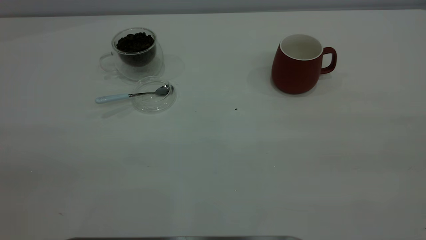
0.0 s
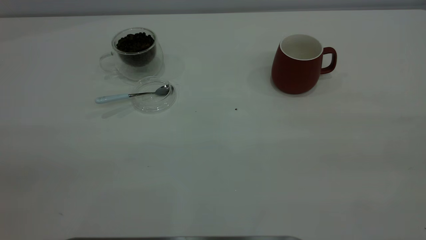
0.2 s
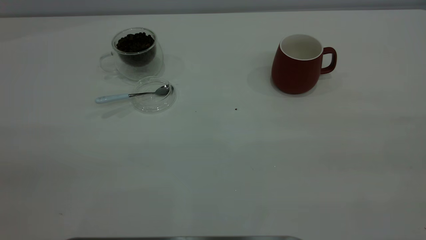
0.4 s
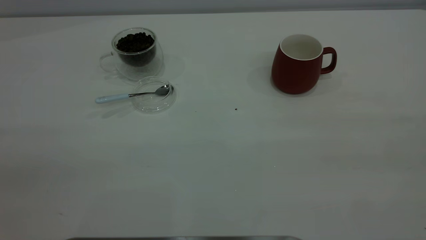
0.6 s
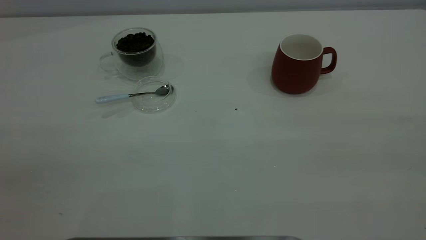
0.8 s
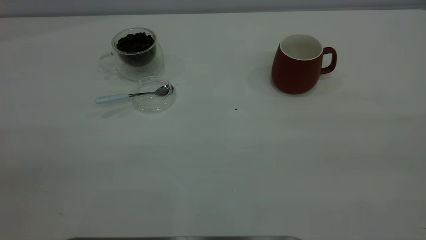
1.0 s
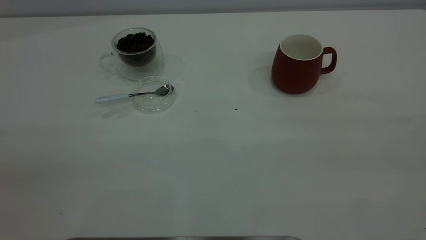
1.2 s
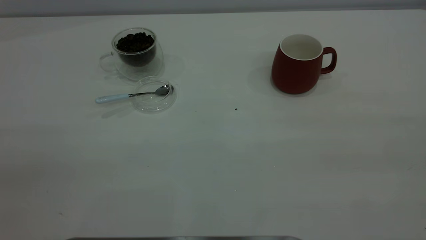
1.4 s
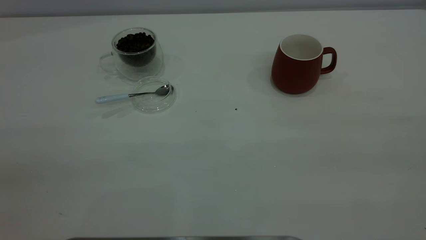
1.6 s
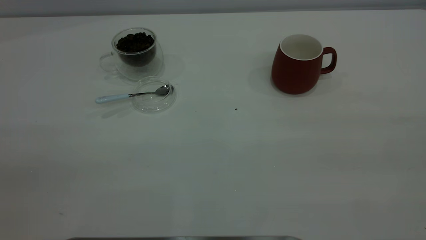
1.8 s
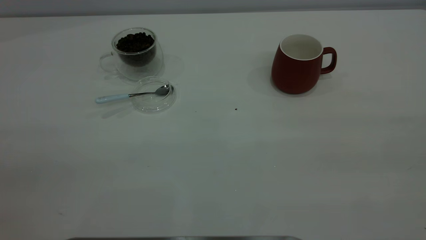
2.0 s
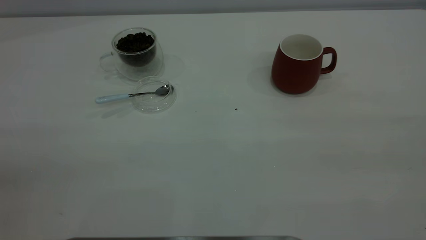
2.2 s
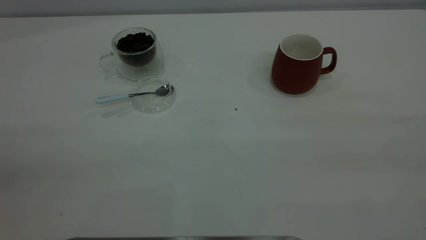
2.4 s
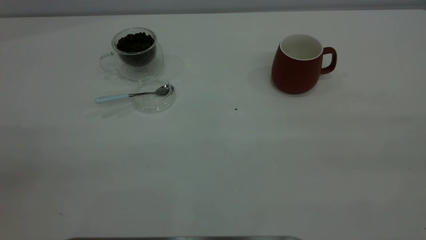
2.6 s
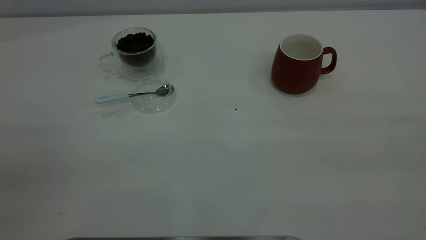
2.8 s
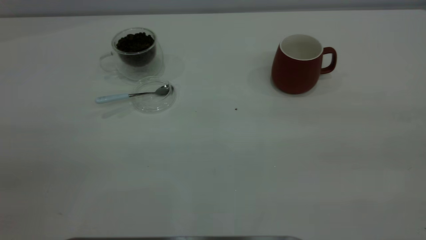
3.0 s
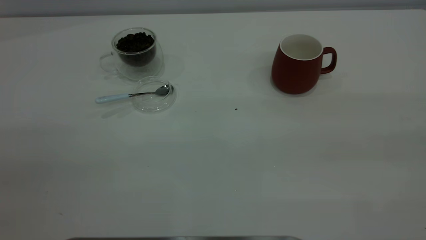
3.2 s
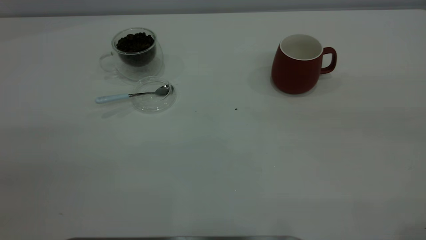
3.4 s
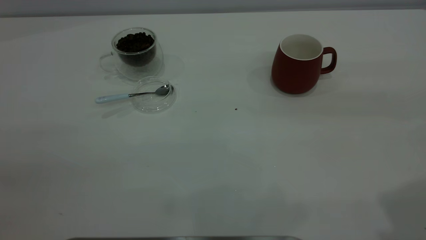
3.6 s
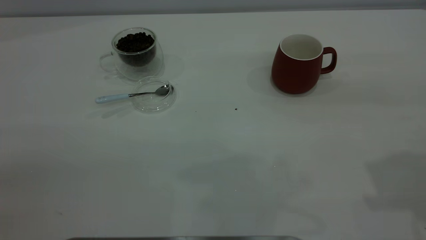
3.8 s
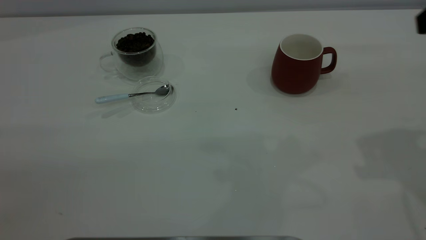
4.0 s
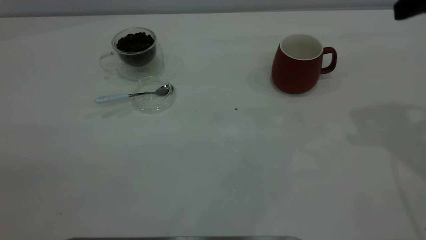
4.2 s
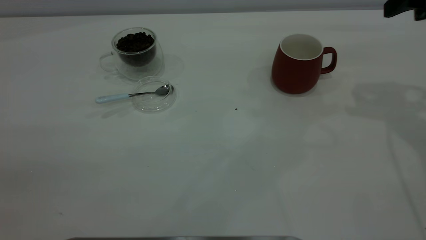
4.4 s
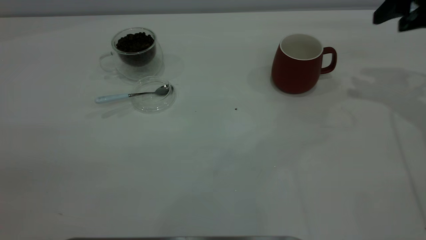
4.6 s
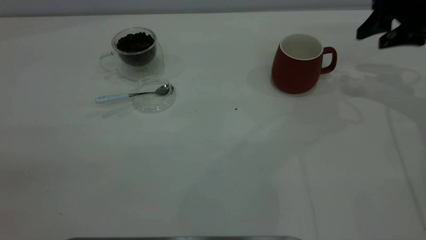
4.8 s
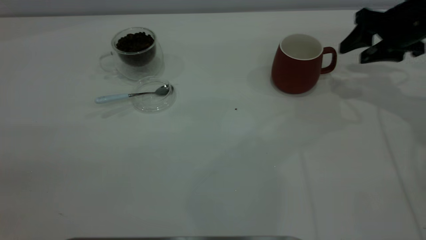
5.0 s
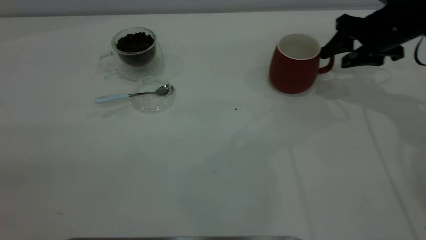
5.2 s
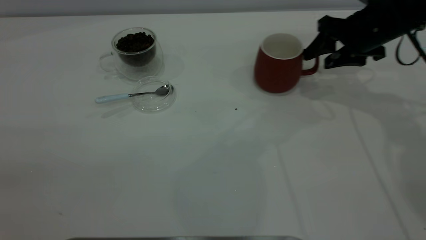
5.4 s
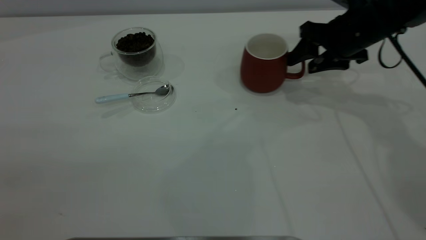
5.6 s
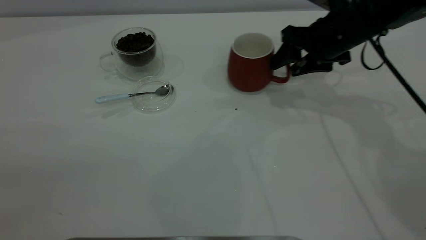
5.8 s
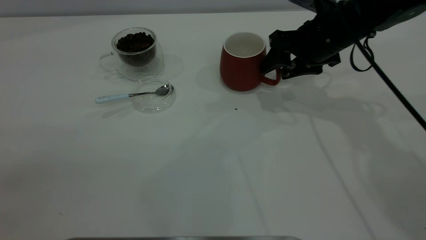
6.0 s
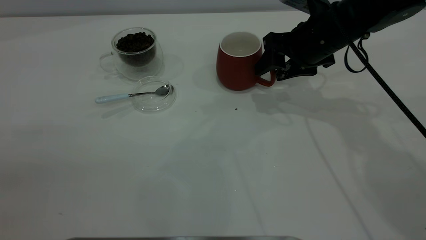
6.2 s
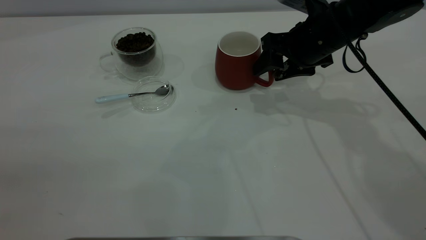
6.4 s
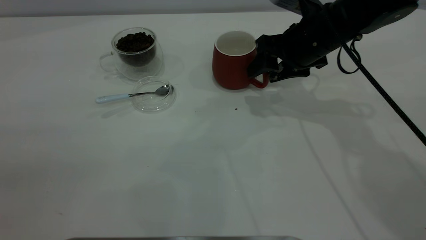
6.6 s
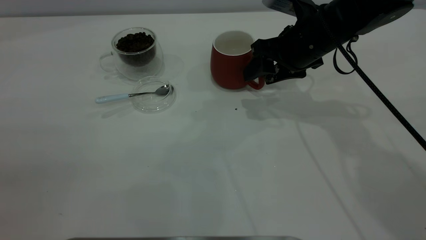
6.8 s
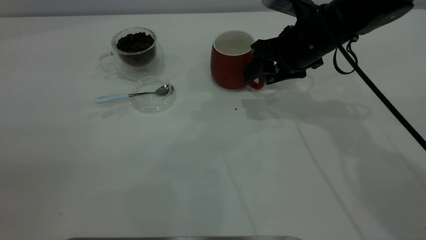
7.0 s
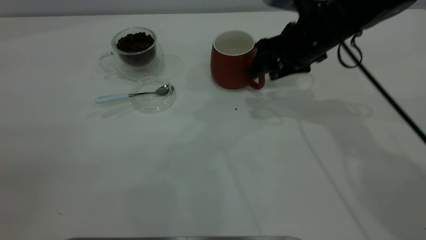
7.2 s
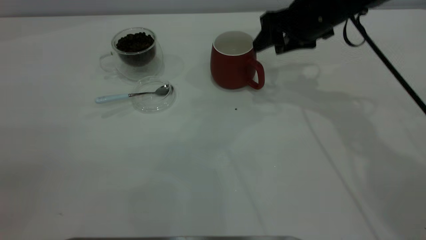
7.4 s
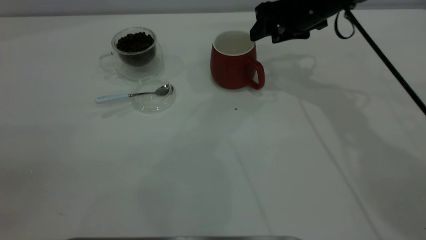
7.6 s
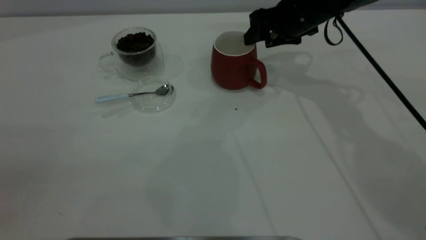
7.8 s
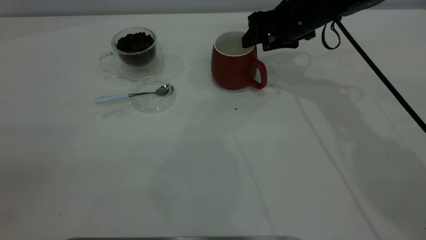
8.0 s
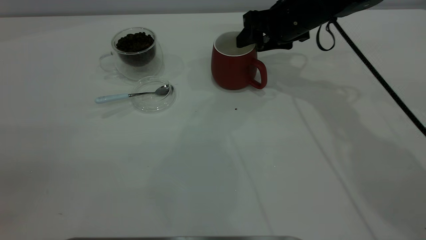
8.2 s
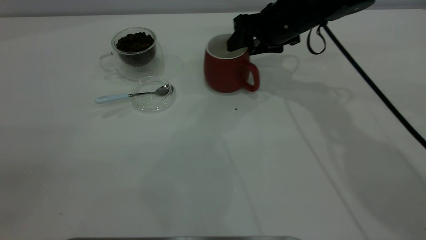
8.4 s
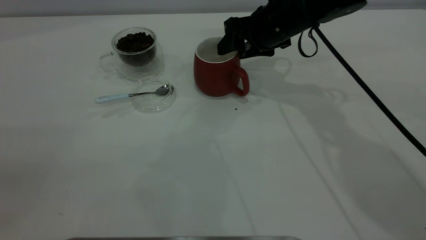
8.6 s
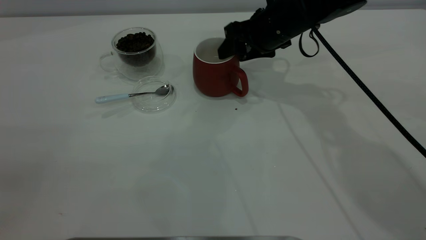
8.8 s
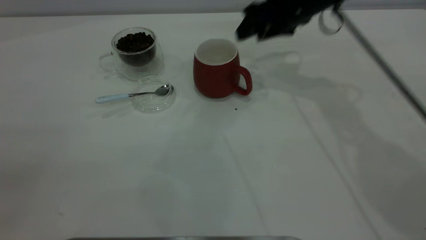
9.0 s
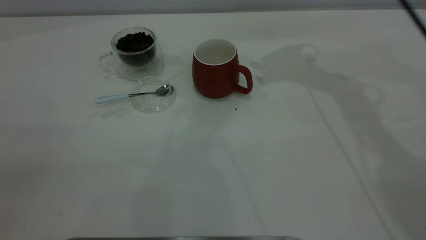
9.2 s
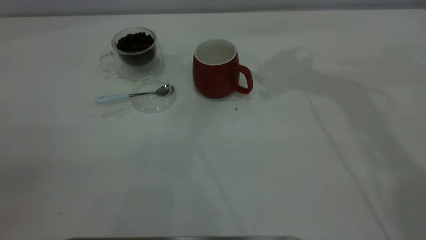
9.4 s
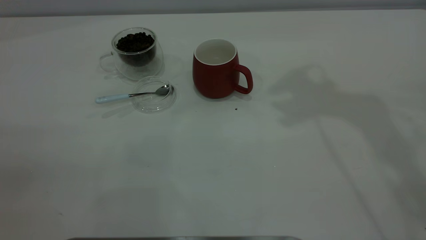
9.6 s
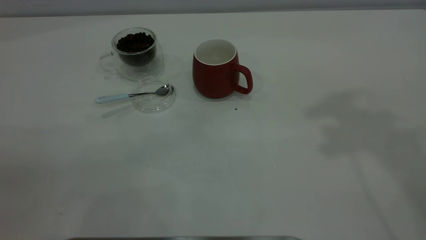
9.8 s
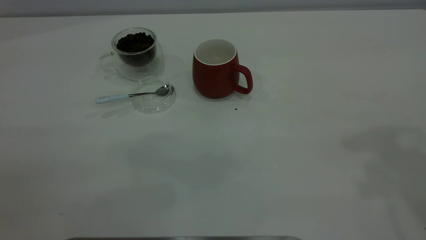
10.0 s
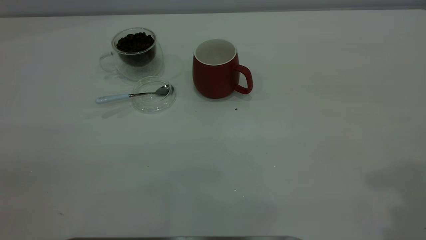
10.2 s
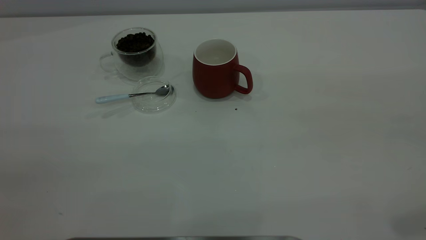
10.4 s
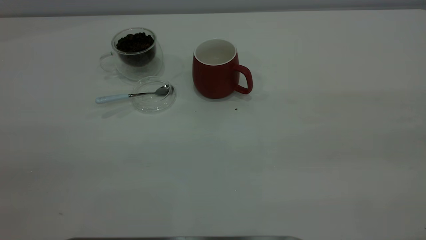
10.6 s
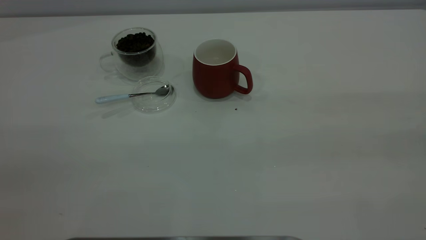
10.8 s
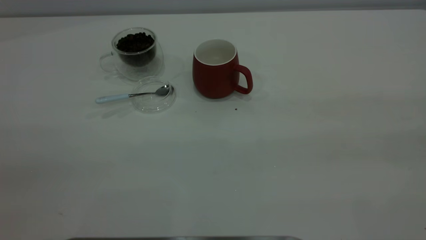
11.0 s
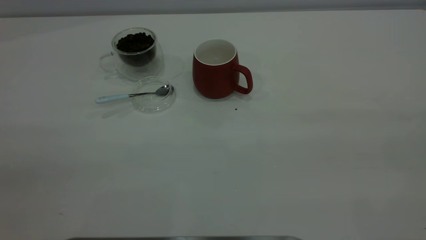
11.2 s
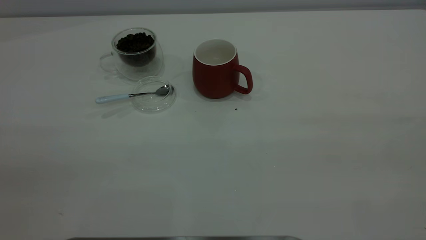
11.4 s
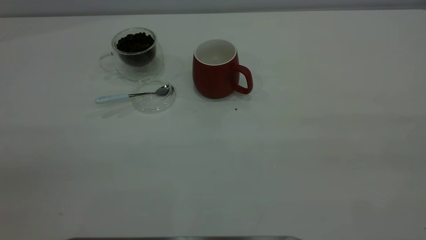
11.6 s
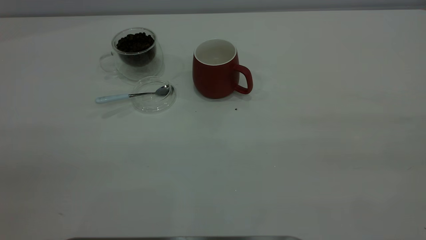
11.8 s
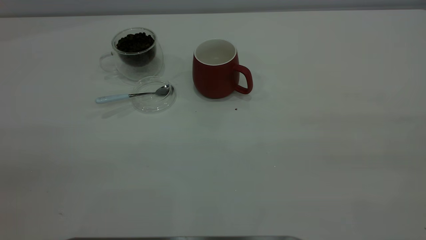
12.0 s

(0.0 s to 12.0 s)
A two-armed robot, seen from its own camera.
Task of the whole recording: the right gripper place the red cup in the center of the table, the left gripper take the blue spoon from the cup lid and scoop out the coffee beans from the coffee cup and put them into the red cup, the left gripper put the spoon back into the cup lid.
Step, 0.0 s - 8.8 s: Move the cup to the center of view.
0.0 s - 1.6 s: Both grippers stay put.
3.0 s - 4.4 s: The right gripper shifts roughly 35 cm forward.
4.4 s - 6.0 s: The right gripper shifts approximately 20 cm to the left and downward.
6.0 s - 7.6 s: The right gripper changes place by approximately 5 cm.
7.6 s - 9.0 s: The grippers move only a little.
9.0 s - 10.4 s: The right gripper goes some 40 cm backward, upward and to the right.

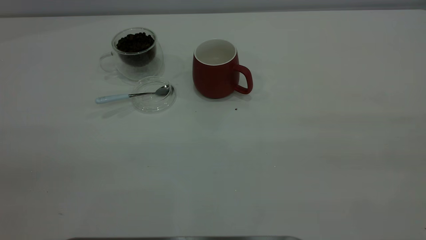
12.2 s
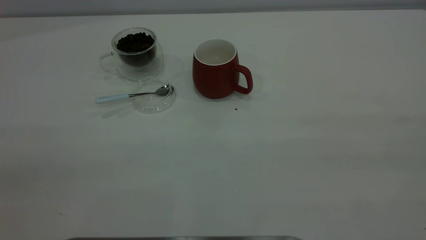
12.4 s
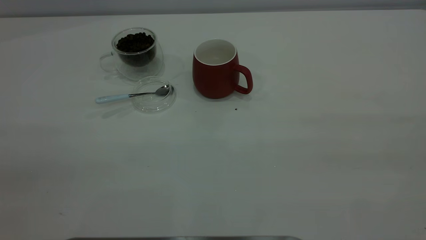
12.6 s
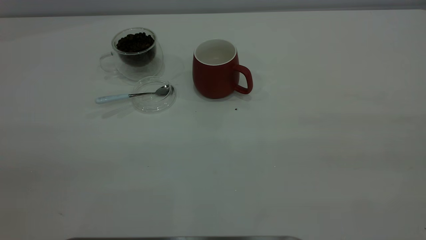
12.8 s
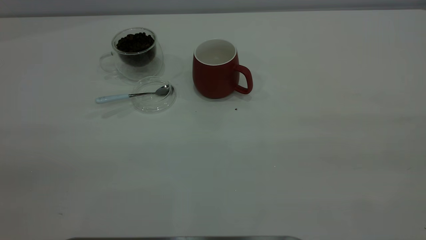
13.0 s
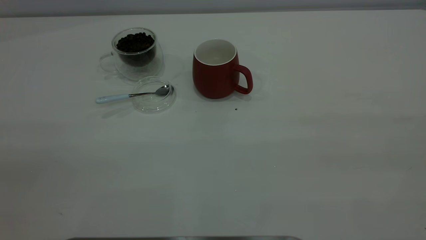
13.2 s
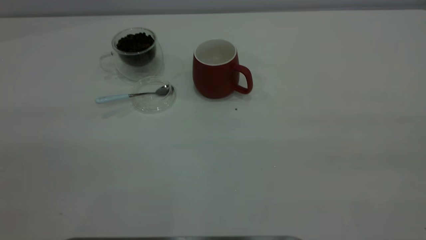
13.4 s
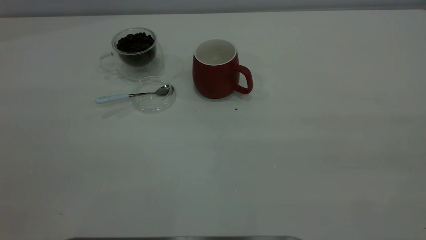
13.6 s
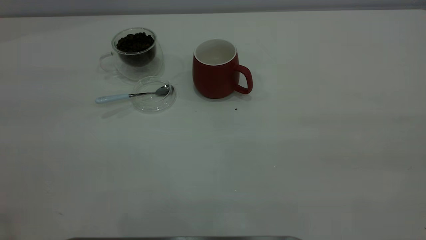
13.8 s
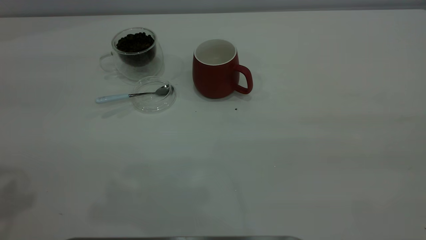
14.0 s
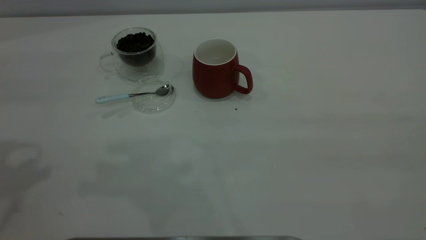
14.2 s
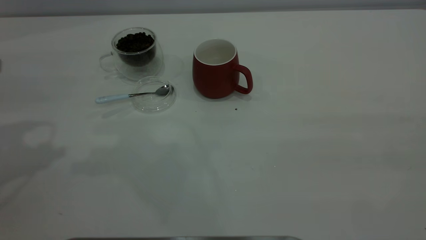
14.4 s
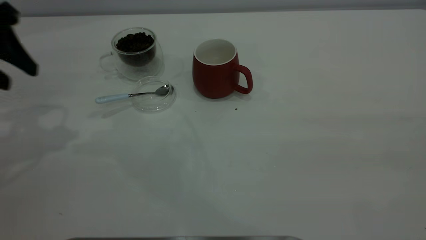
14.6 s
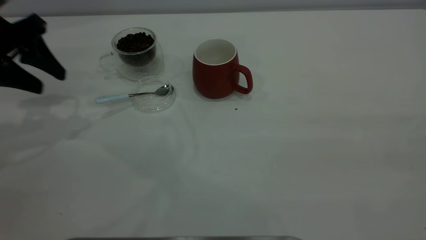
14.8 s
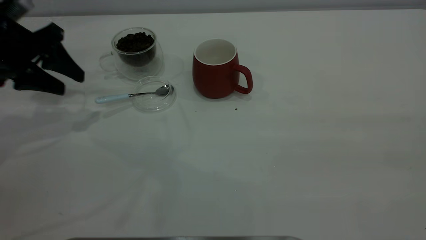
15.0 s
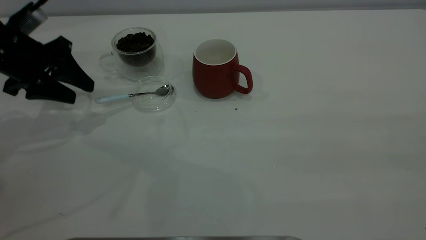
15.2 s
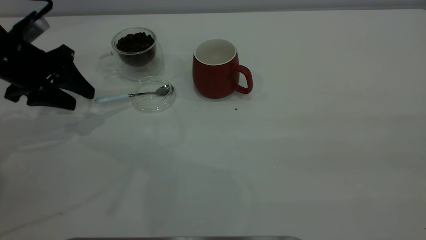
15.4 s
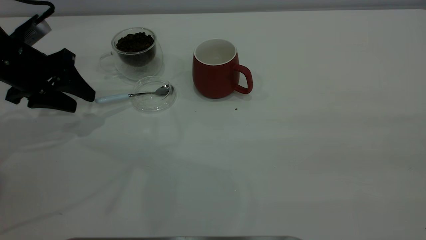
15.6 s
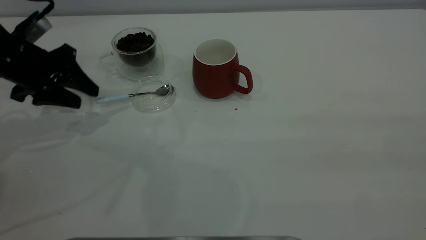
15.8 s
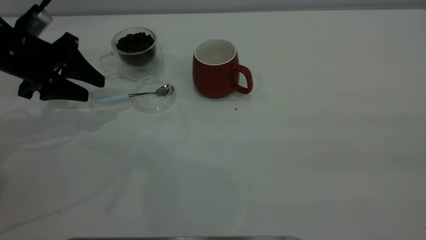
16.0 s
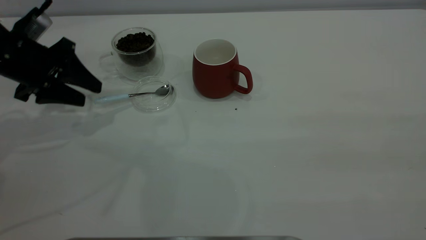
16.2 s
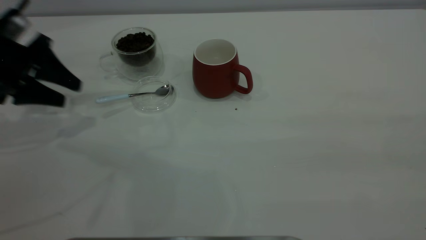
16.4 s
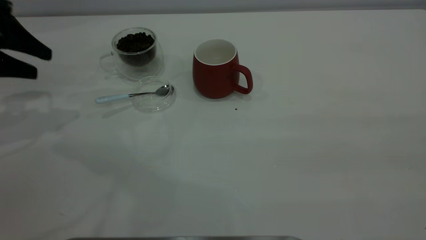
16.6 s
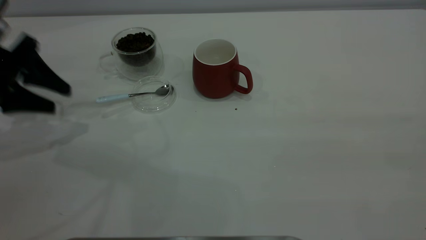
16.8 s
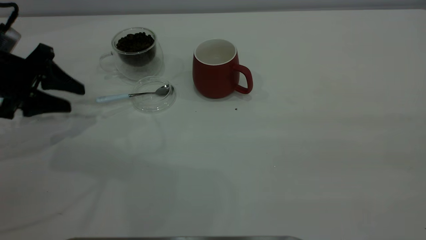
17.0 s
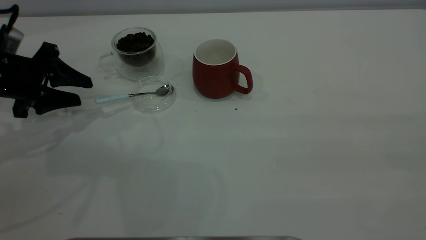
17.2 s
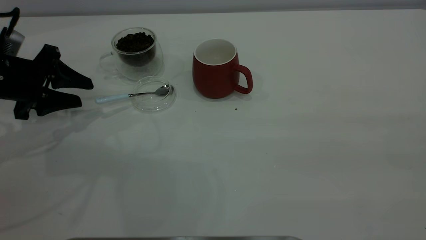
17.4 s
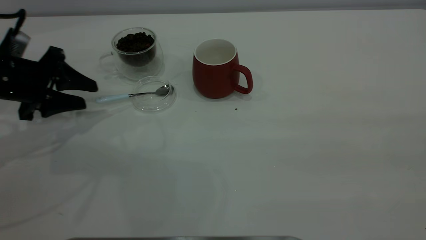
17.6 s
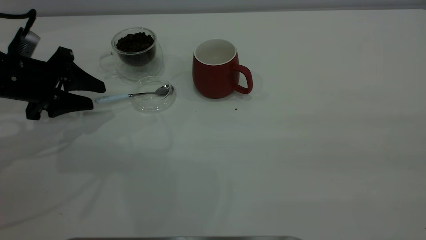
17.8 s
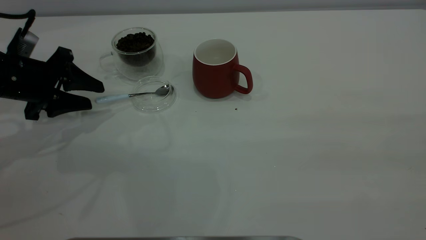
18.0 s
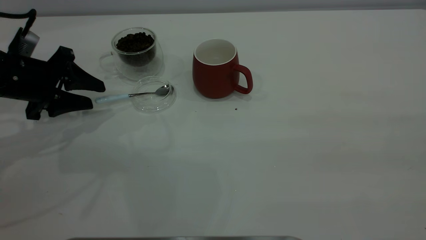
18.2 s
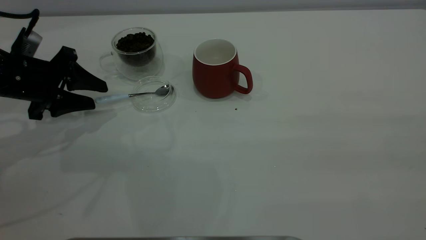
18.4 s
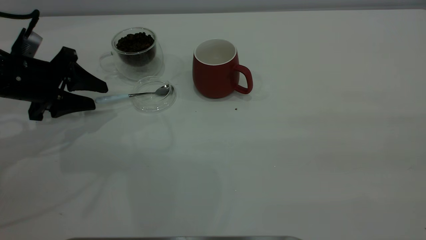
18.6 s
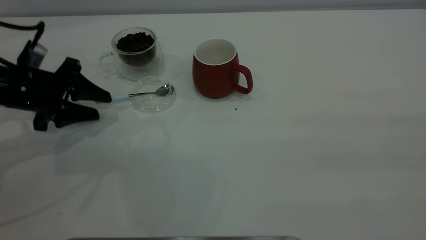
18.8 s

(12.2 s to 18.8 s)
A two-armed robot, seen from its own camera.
Task of the whole recording: the right gripper place the red cup in the center of the table, the left gripper take the blue spoon from the cup lid and scoop out the coffee beans from the coffee cup and put them into the red cup, the left gripper put the spoon back into the cup lid.
13.8 s - 15.4 s: The left gripper travels downward and forward by roughly 35 cm.
15.4 s - 17.2 s: The left gripper goes upward and returns, roughly 5 cm each way.
17.2 s - 18.8 s: The grippers make only small movements.
